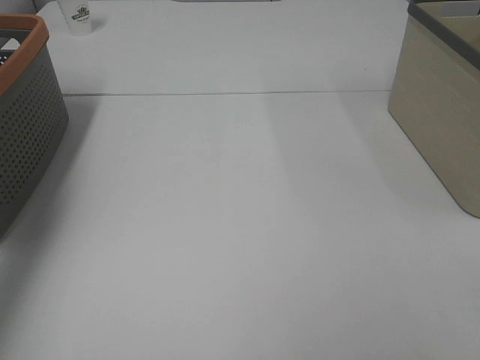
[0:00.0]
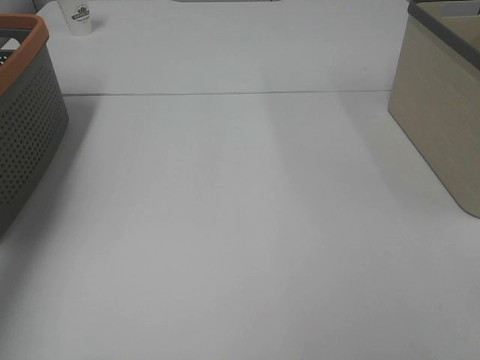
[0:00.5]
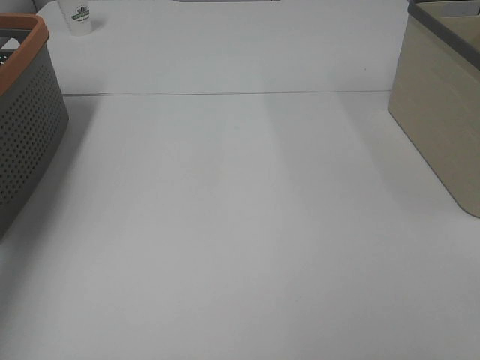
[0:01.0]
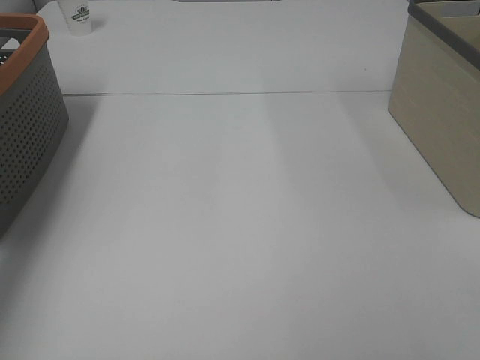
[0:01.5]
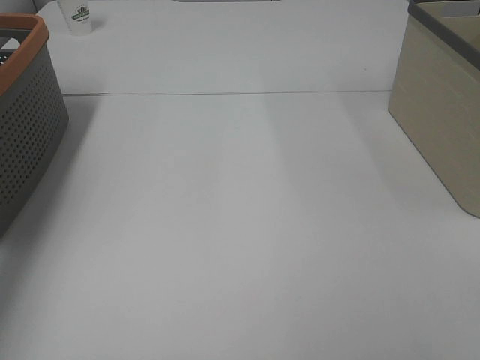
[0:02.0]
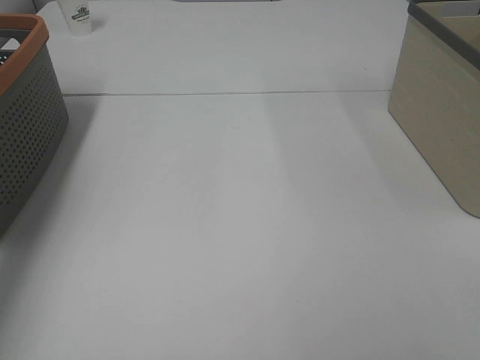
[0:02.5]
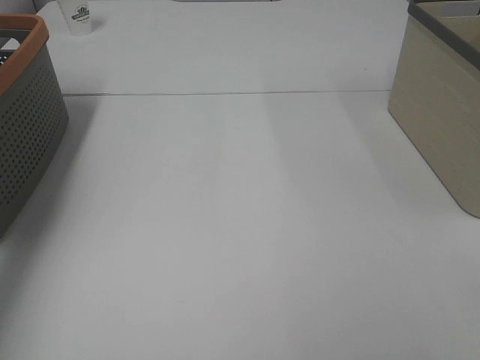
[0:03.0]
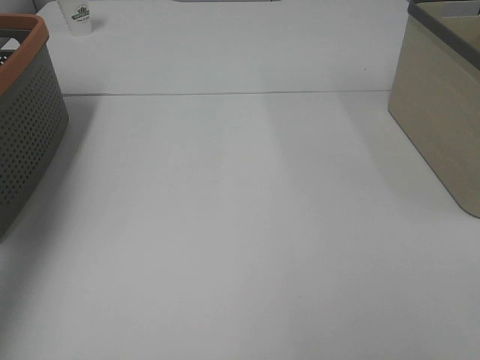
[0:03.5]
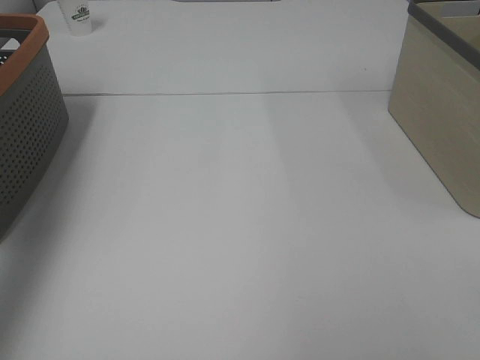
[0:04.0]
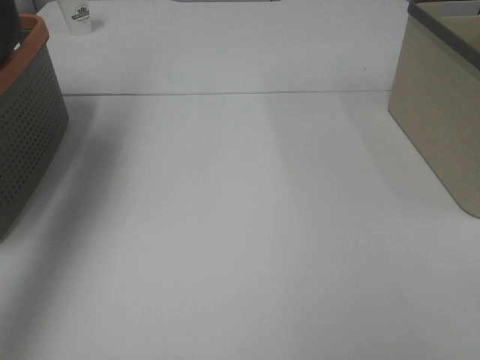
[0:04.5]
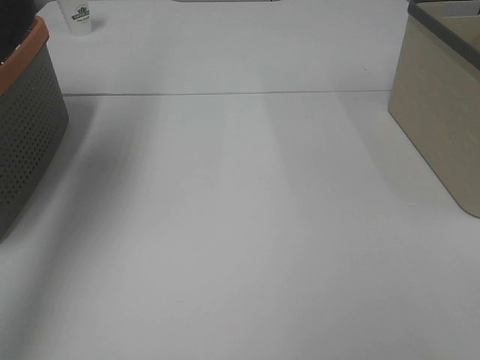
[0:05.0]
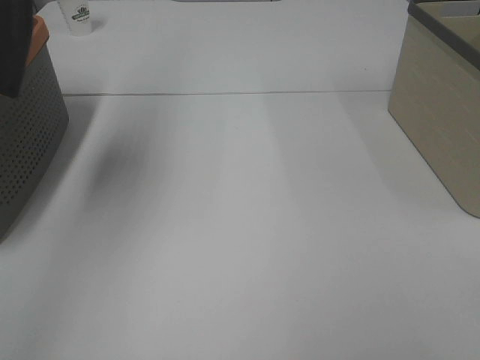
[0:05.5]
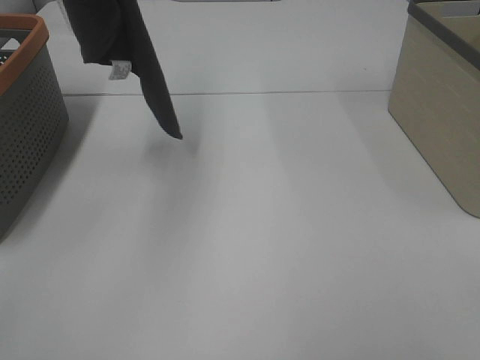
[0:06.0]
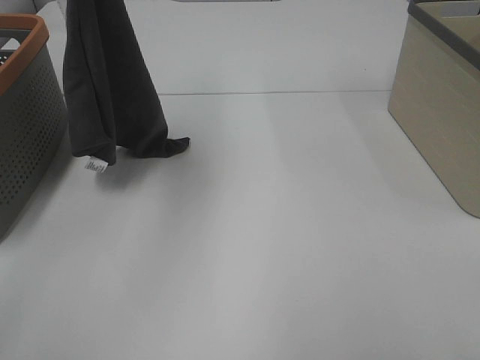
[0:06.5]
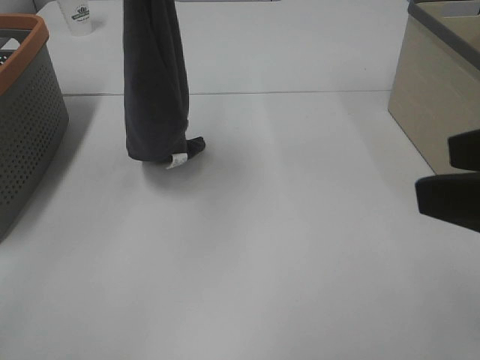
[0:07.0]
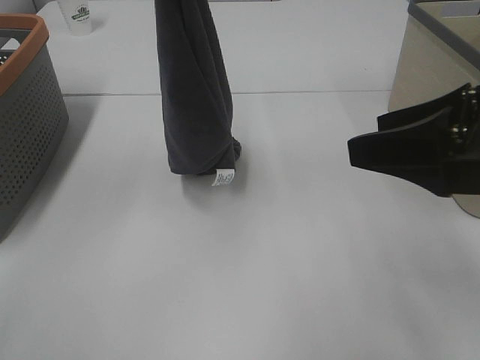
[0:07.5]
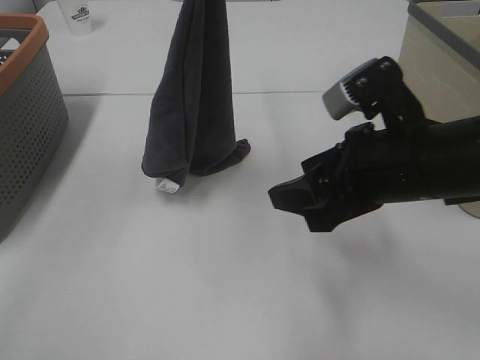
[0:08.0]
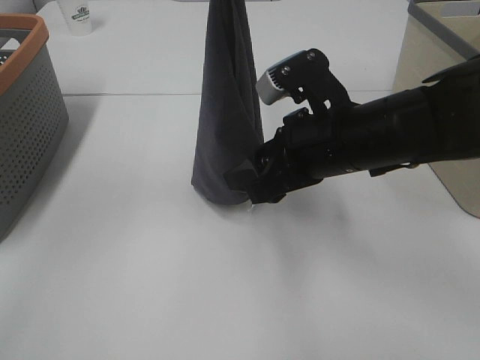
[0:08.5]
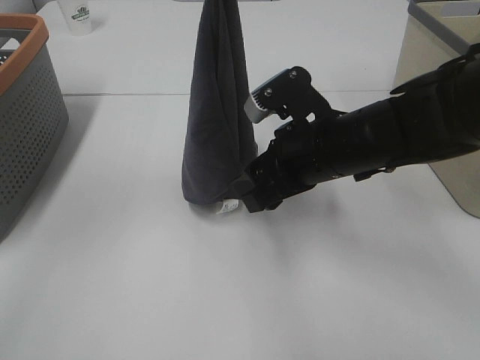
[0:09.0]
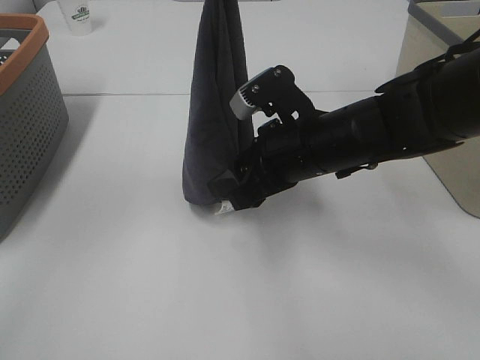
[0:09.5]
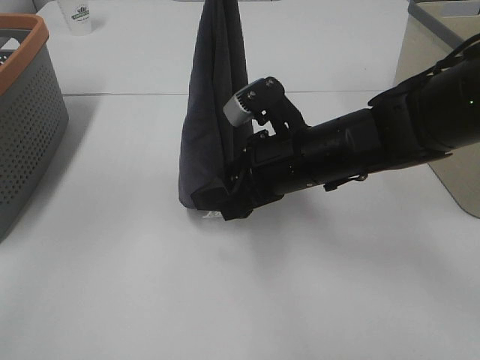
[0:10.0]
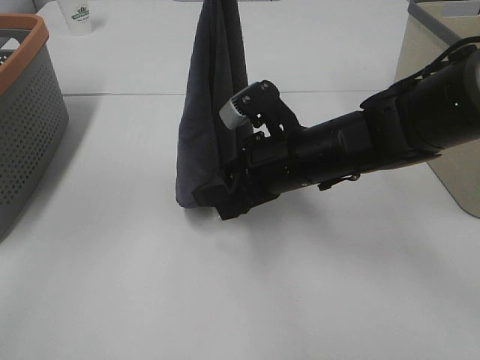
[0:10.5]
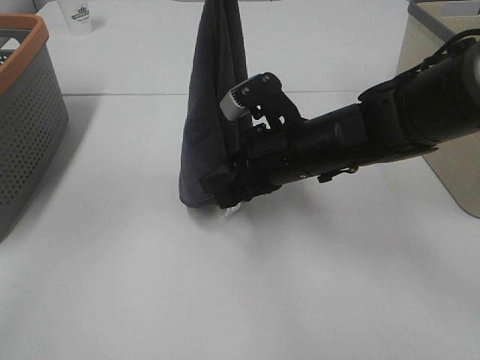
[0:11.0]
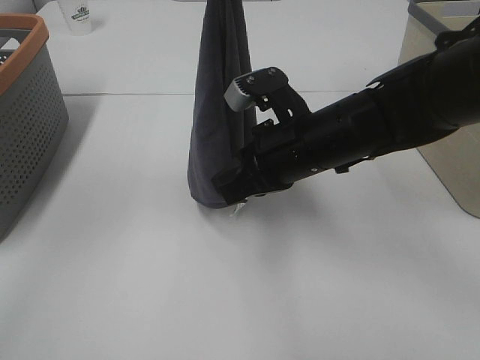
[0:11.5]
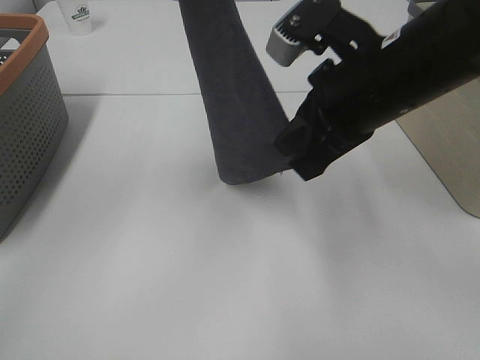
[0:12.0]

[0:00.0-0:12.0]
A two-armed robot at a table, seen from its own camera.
Task of the whole recording: Remove the towel and place it.
Step, 0:05.0 to 0:09.0: Right hand: grab a corner of the grey towel and straighten it.
0:04.0 to 0:06.0: The left gripper is displaced to the right by approximately 20 cm.
0:06.0 to 0:08.0: The left gripper heads to the right and downward, covering about 15 cm; the right gripper goes roughly 25 cm forward and to the left.
0:08.0 to 0:10.0: The right gripper is displaced to the left, forward and downward by approximately 10 cm.
0:10.0 to 0:12.0: The right gripper travels upward by approximately 10 cm, and closes, while the left gripper travels to the left by about 5 cm.

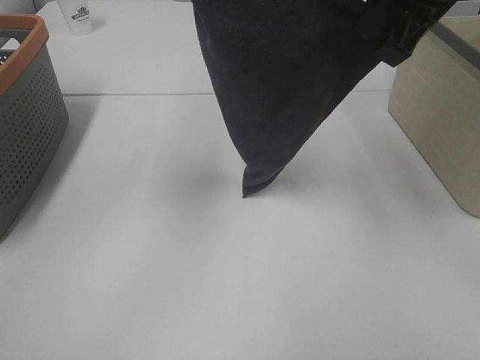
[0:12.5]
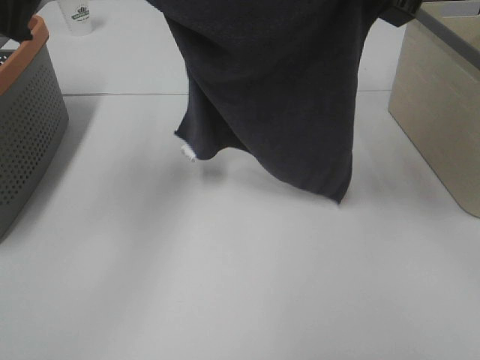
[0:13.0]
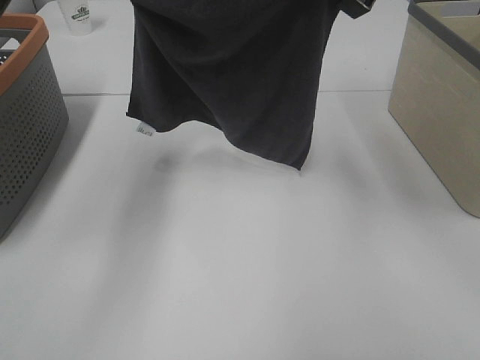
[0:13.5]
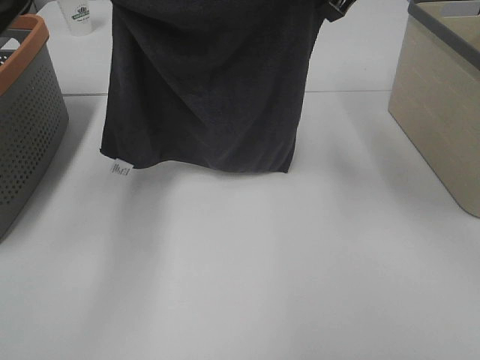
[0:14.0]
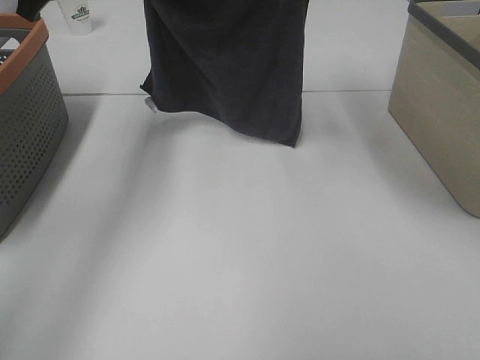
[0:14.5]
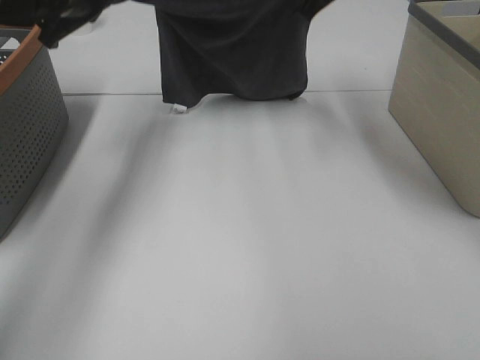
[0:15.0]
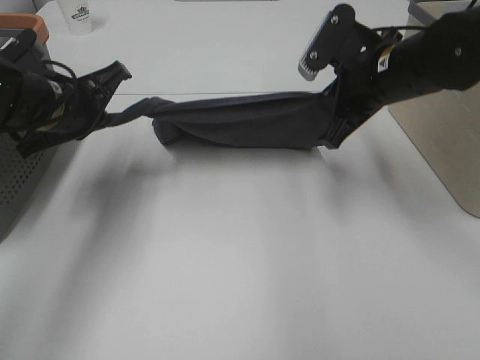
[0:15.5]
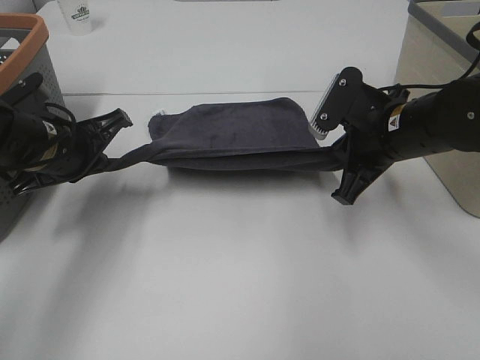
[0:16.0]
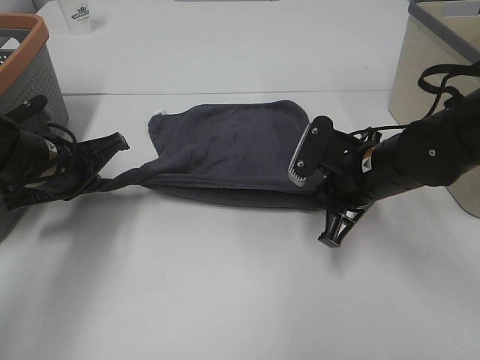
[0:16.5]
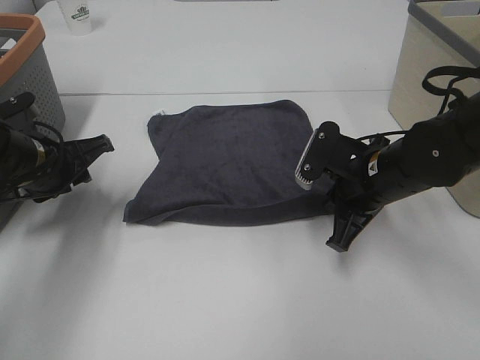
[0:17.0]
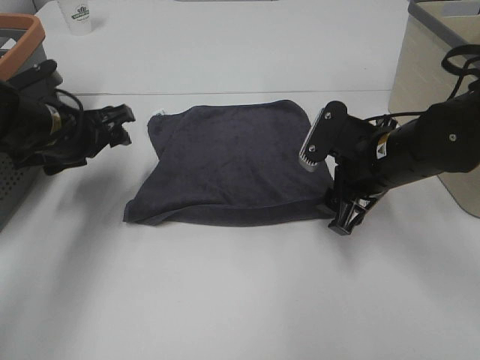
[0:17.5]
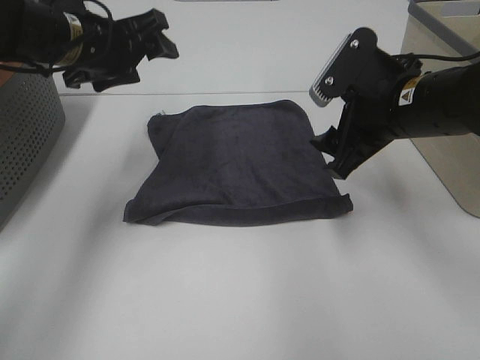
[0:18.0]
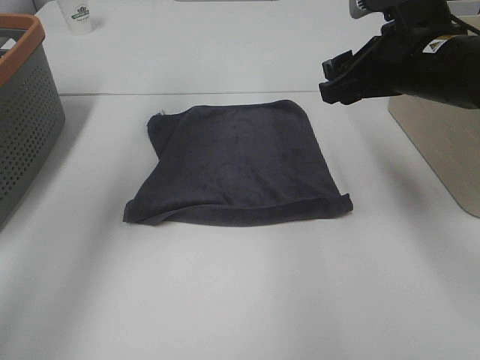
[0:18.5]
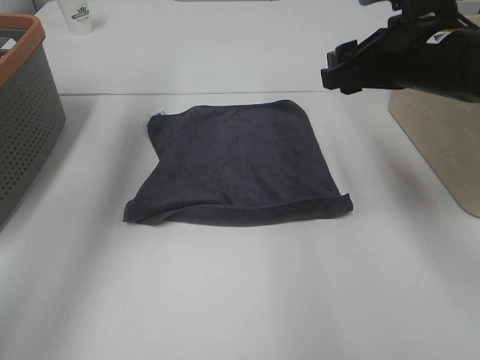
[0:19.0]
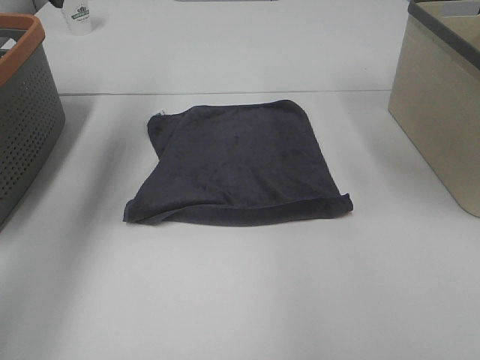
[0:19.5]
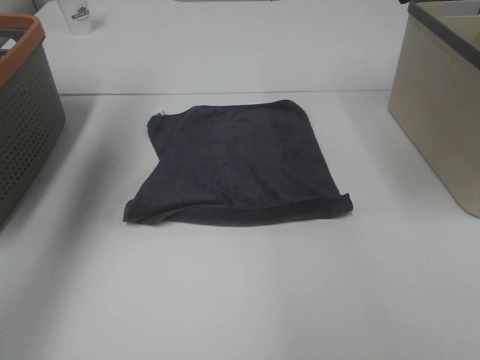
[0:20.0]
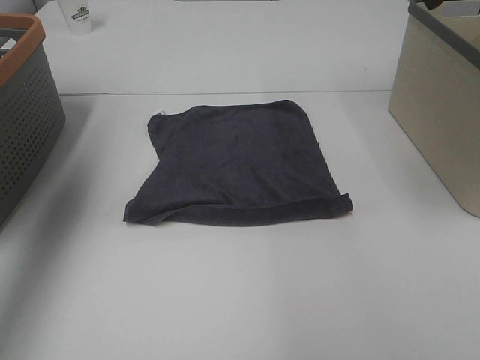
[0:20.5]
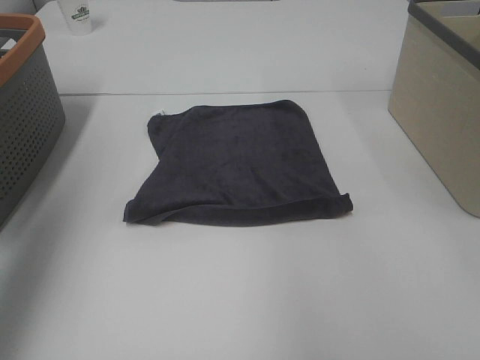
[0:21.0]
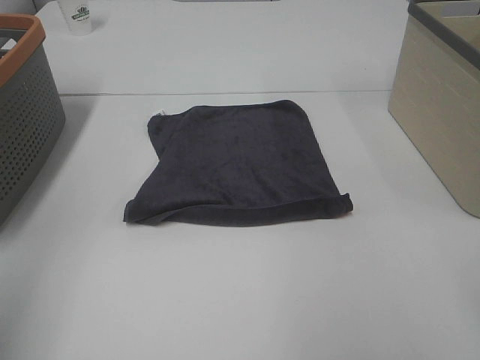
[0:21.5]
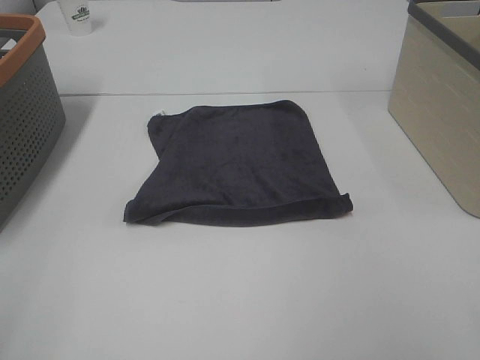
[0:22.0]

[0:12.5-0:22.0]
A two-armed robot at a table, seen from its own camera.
Task of the whole recording: Remove the towel and place it.
0:12.5 to 0:14.5: The right gripper travels forward by about 15 cm. The left gripper heads downward, forward and to the left, covering some 15 cm.
0:14.5 to 0:16.5: The two grippers go some 25 cm downward and backward.
0:16.5 to 0:18.0: The left gripper shifts about 15 cm upward and forward, and opens its fingers; the right gripper shifts some 10 cm upward, and opens.
0:18.0 to 0:20.0: The right gripper travels upward by approximately 20 cm. Meanwhile the left gripper goes approximately 20 cm upward and to the left.
0:20.0 to 0:22.0: Both grippers travel together backward, roughly 30 cm.
